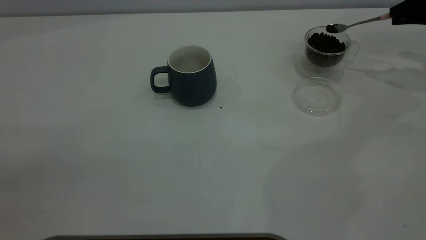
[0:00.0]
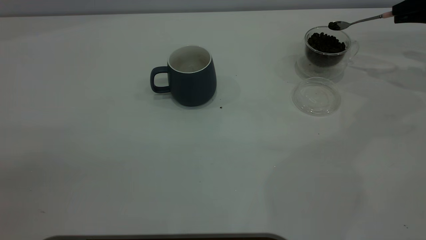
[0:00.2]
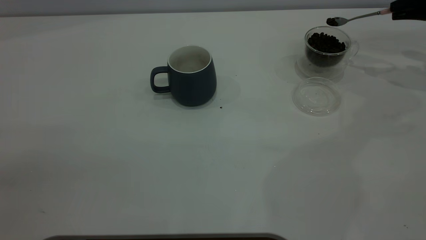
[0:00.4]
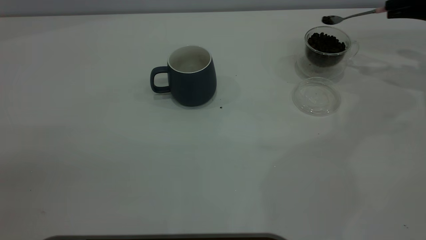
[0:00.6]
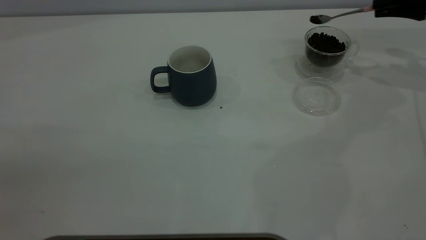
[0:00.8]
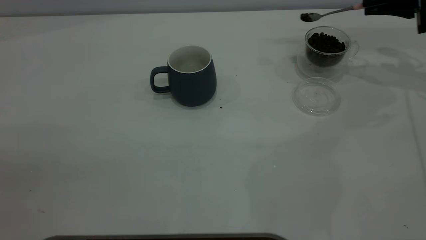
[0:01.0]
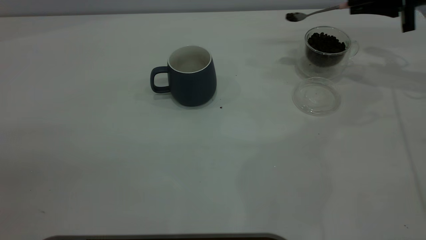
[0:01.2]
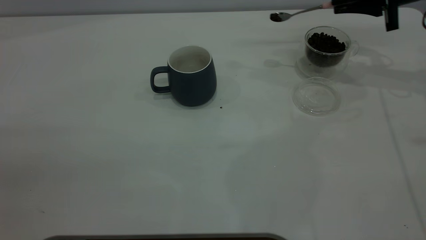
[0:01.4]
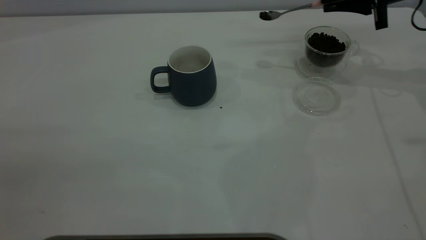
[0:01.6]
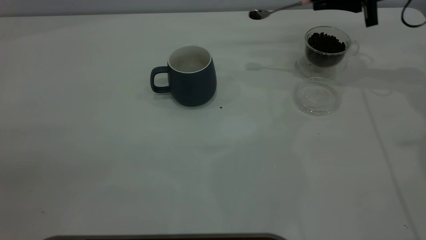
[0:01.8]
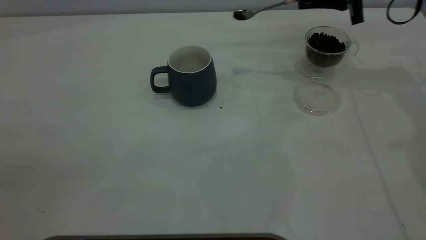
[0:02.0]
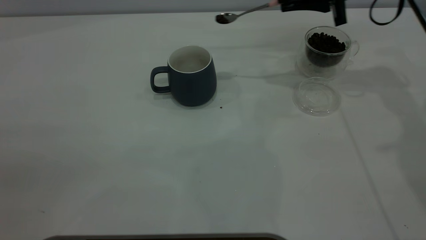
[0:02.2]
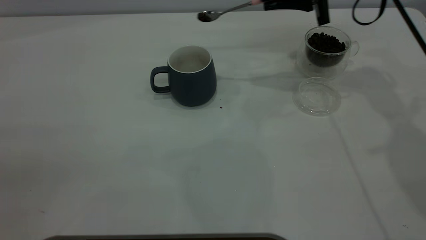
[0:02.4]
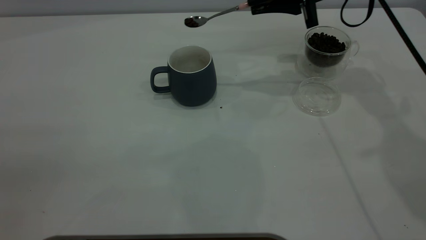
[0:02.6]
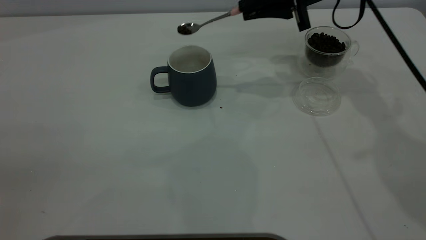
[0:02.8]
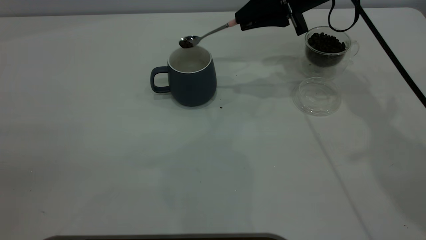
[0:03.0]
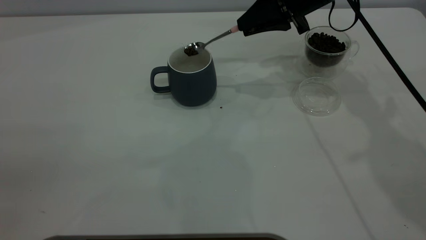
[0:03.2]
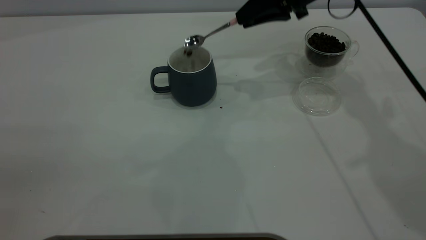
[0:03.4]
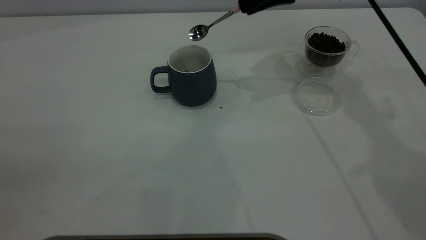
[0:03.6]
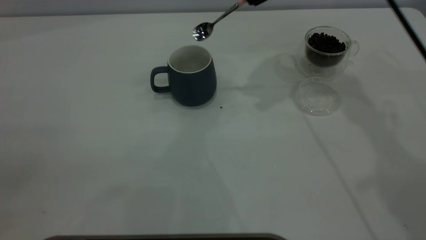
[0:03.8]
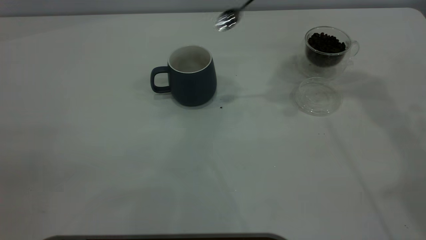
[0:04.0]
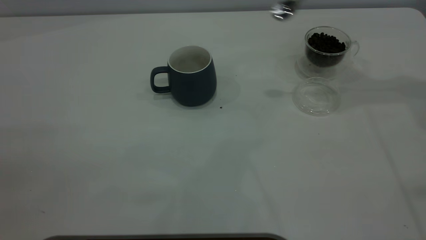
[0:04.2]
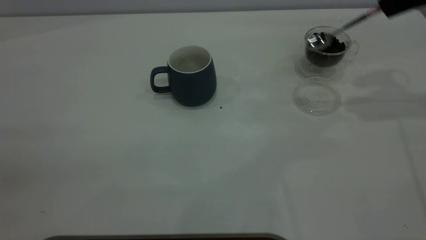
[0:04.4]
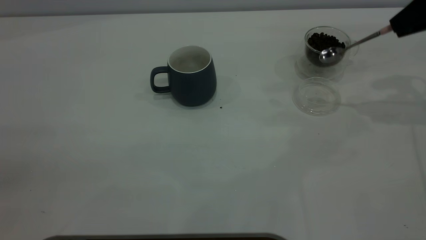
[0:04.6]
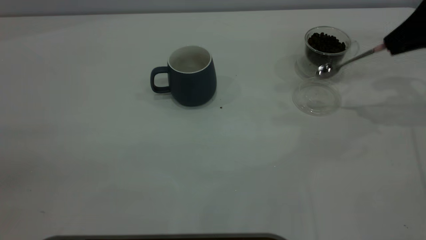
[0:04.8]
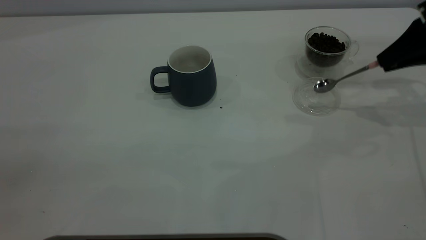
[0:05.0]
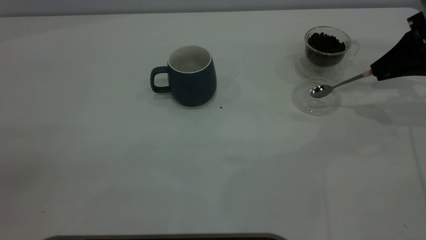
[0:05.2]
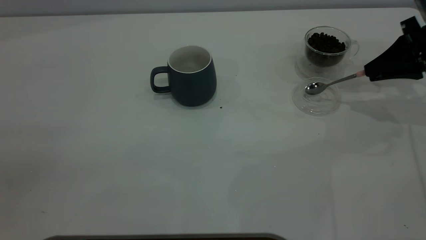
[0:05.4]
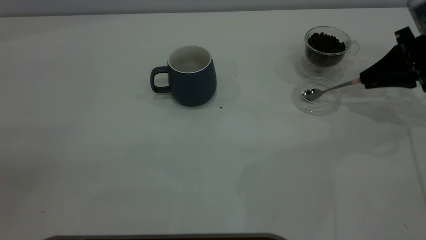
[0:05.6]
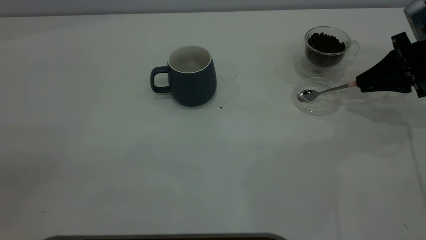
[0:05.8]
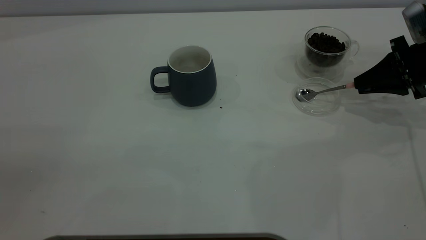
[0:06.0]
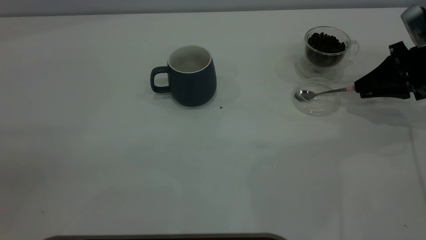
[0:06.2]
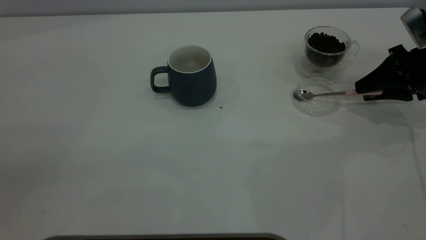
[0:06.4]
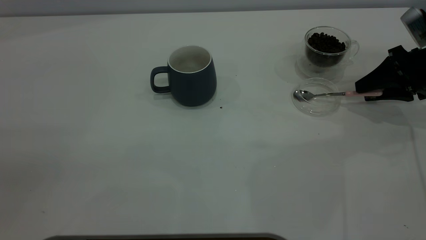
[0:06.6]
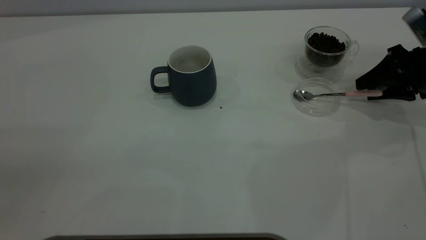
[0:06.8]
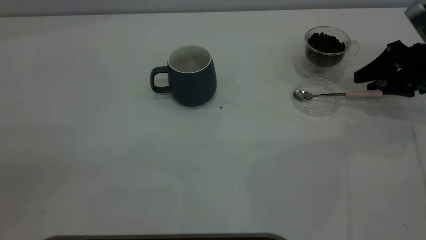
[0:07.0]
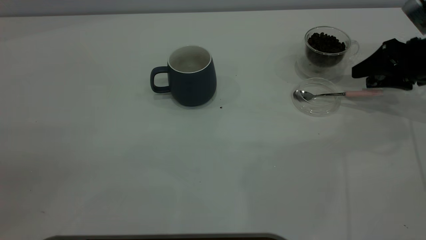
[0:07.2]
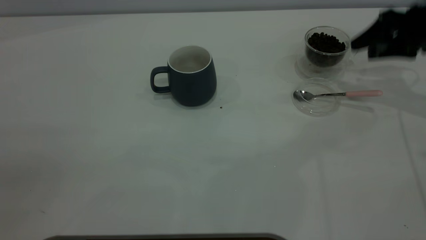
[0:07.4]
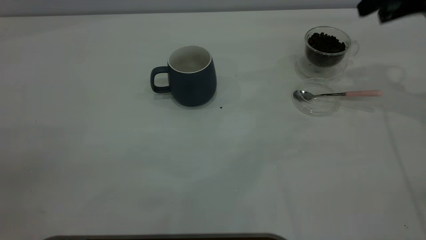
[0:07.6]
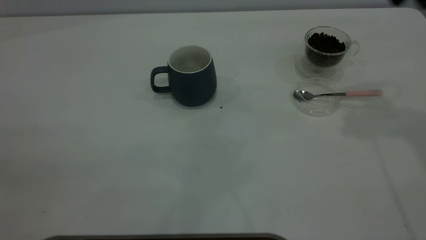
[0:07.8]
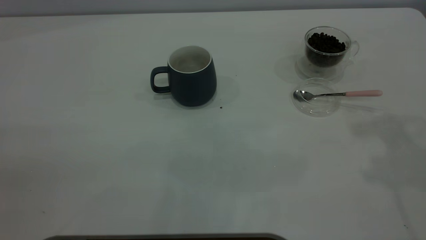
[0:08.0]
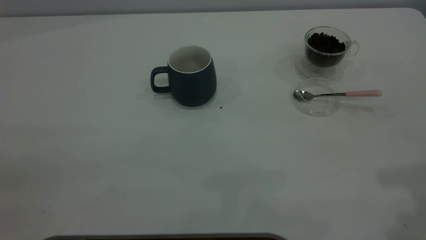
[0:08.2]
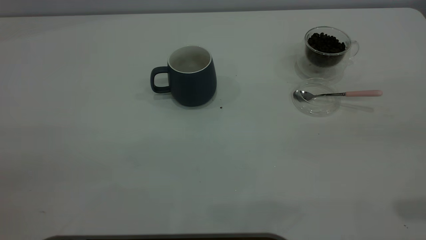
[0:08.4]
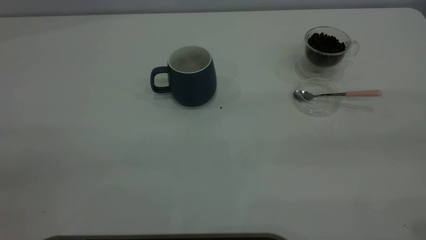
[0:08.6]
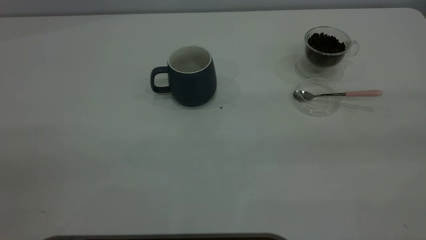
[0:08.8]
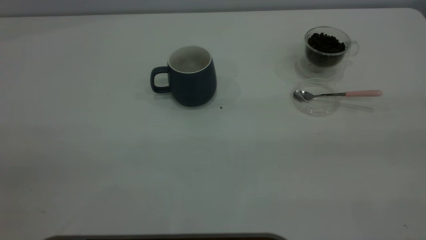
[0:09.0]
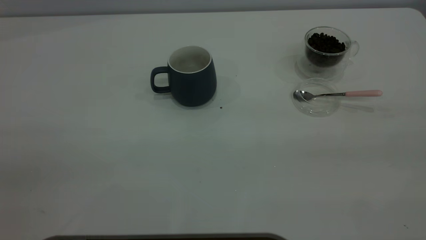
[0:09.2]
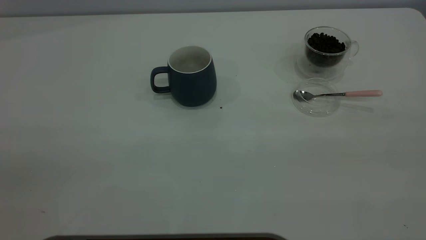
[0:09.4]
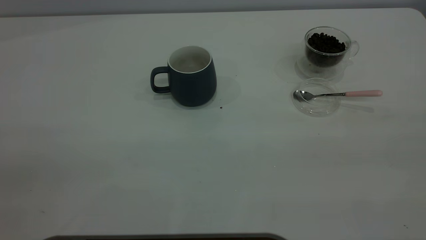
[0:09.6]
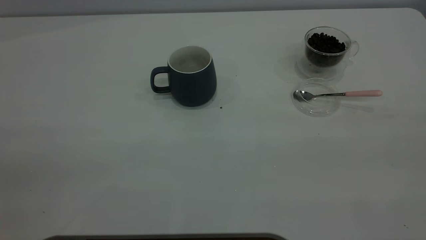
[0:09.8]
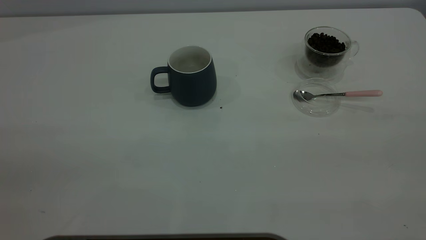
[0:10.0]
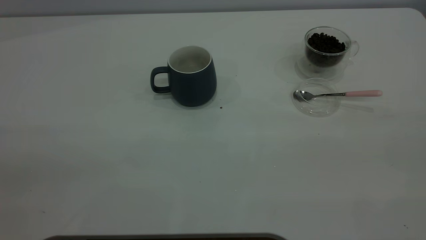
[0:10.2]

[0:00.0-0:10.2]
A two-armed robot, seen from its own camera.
Task of the whole recording: the left gripper place the grey cup in the center of the table, the right gripper take the pink spoon from the cup lid and scoop out the coffee beans from the coffee cup and put them into the grey cup, the right gripper put the spoon back into the cup lid.
Step, 0:00.0 to 0:03.6: Scoop a spoonful of beans into the cup.
Step, 0:03.8 to 0:07.2: Place the spoon back in its original place.
0:00.0 to 0:01.4: The right gripper shifts roughly 10 cm to the left.
0:01.4 to 0:03.0: The right gripper is displaced to the left by roughly 15 cm.
0:03.0 to 0:04.4: The right gripper goes some 20 cm to the right.
0:04.4 to 0:05.8: The right gripper heads downward, covering some 15 cm.
0:05.8 to 0:07.2: The right gripper opens.
0:07.2 to 0:08.8: The right gripper heads backward and upward, covering roughly 40 cm.
